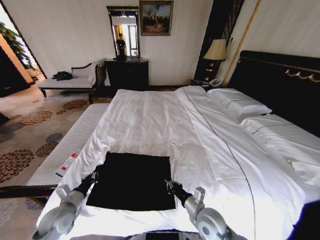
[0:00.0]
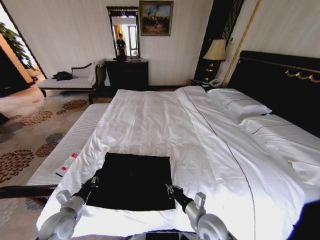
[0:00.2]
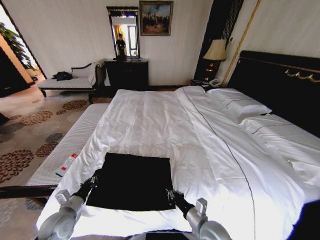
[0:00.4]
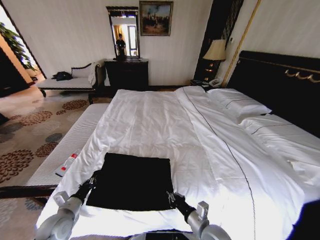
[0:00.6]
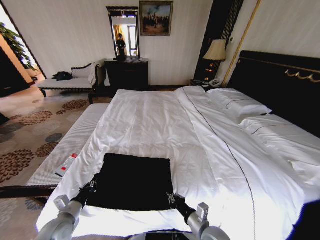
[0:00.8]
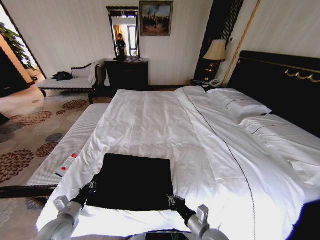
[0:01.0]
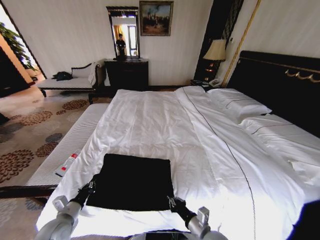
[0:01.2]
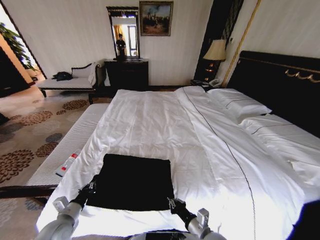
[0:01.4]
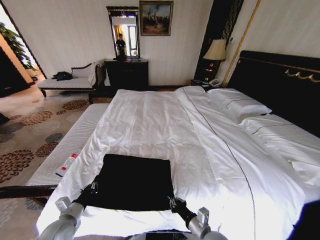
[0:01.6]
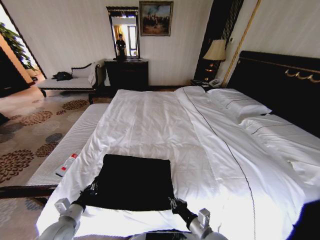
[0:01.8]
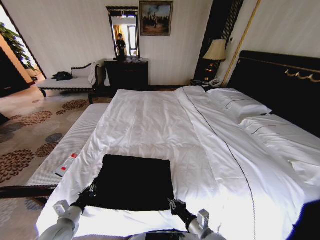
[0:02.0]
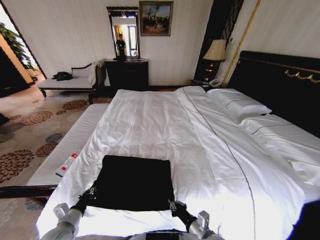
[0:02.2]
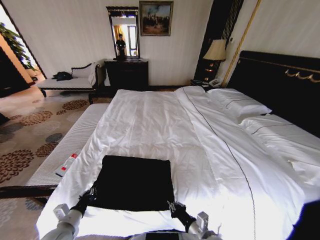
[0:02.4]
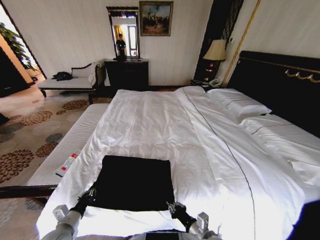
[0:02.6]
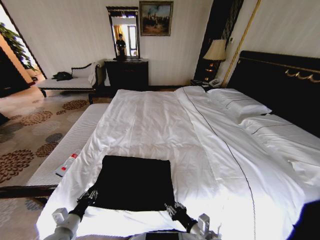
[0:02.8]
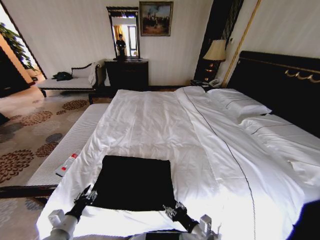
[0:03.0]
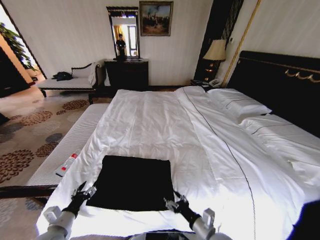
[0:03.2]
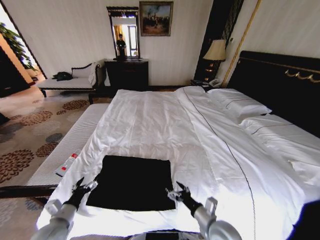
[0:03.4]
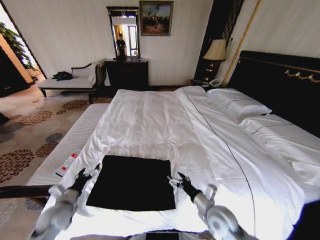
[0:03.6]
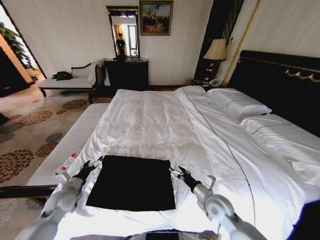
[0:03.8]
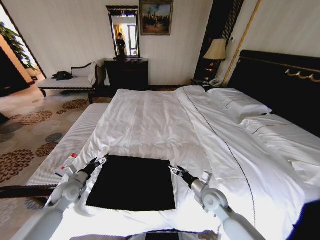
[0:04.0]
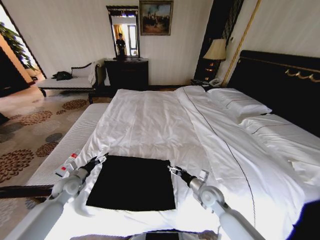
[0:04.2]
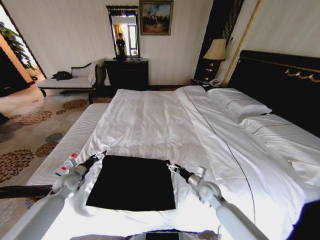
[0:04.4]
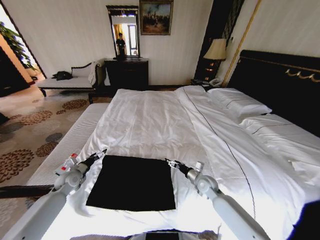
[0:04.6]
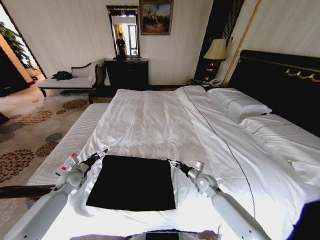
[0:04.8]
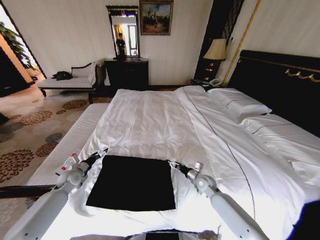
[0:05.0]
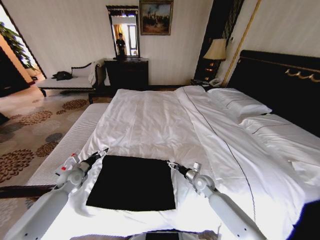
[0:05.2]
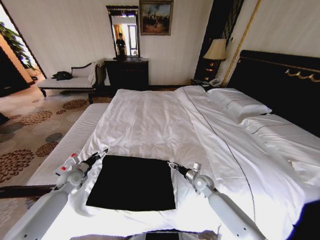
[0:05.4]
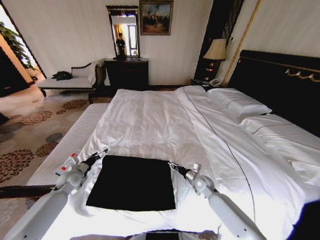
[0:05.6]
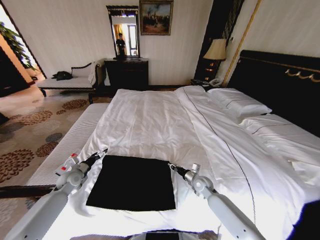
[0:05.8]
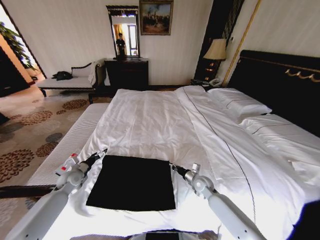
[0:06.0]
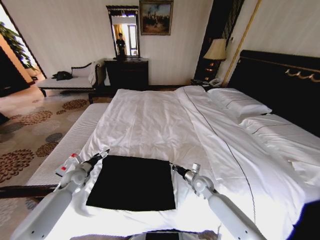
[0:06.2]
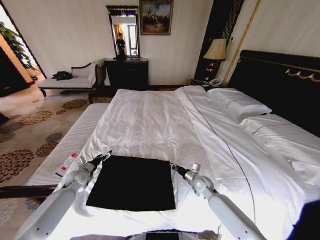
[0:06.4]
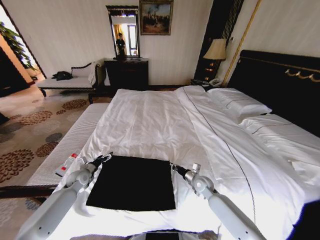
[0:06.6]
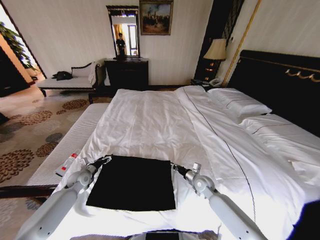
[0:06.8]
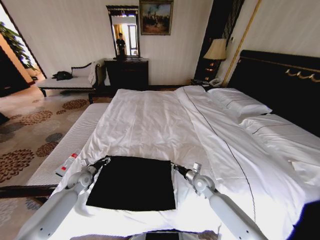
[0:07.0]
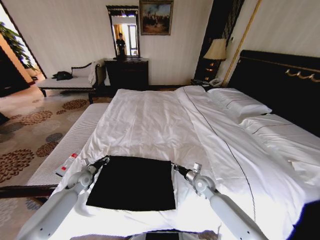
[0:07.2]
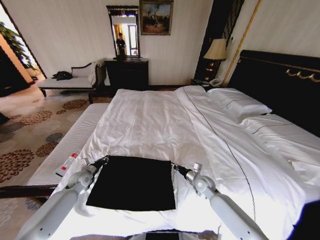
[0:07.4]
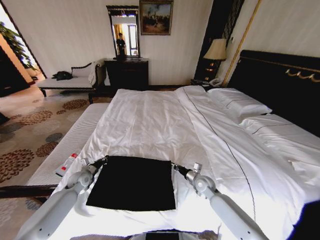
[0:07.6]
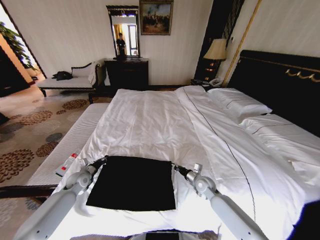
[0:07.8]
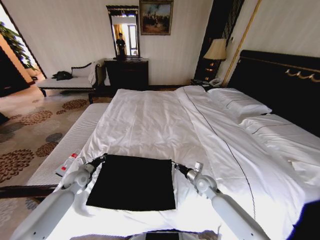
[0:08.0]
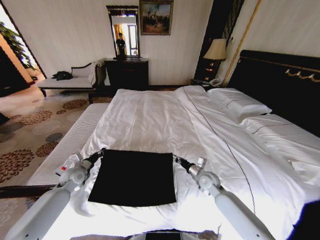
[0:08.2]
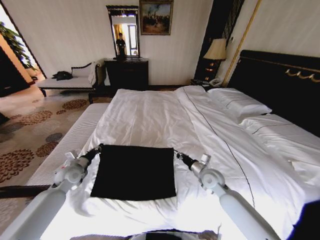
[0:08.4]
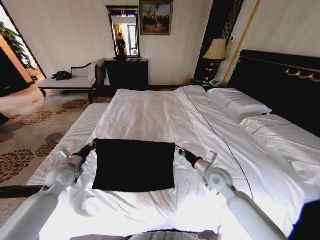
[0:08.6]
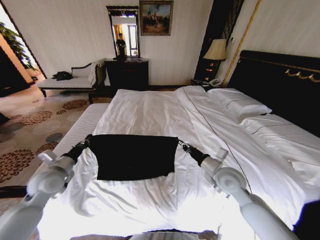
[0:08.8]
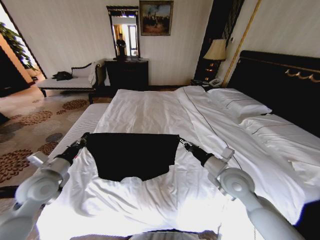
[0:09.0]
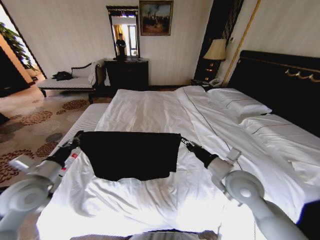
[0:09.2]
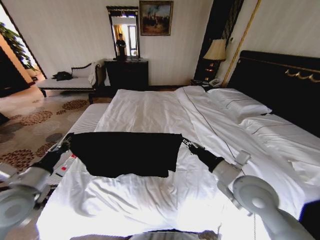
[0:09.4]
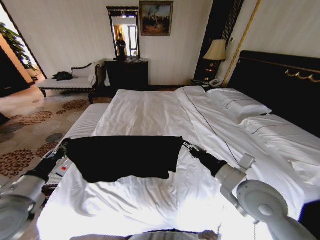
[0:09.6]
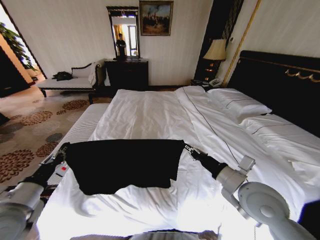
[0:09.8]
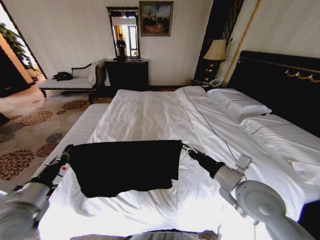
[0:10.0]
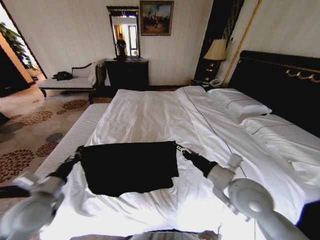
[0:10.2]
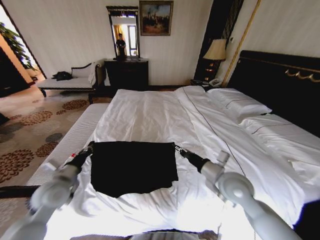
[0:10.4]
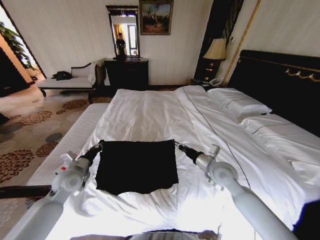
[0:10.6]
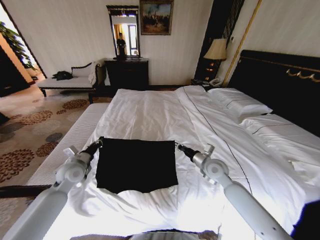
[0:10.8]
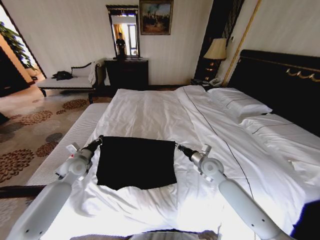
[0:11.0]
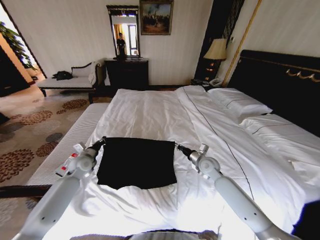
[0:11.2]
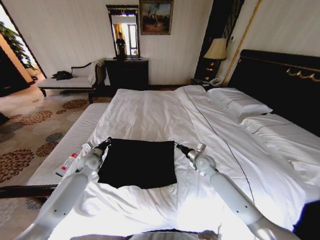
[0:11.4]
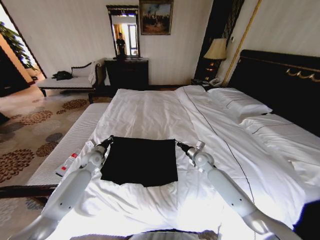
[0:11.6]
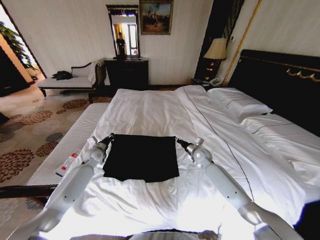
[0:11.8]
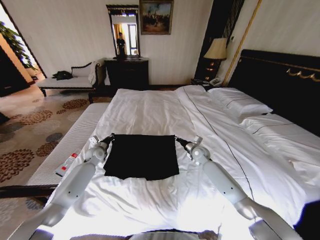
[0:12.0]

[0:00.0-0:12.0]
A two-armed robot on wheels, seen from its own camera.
Task of the whole recording: Fold the clothes on the bed.
0:00.0 to 0:01.6: The right gripper heads backward, covering roughly 5 cm.
0:01.6 to 0:03.0: The left gripper opens. Meanwhile the right gripper opens.
0:03.0 to 0:04.4: The grippers both shift forward by roughly 20 cm. The right gripper opens its fingers; the left gripper opens.
0:04.4 to 0:06.0: The right gripper ends up about 5 cm from where it was, and closes.
0:06.0 to 0:07.6: The left gripper closes its fingers.
0:07.6 to 0:09.0: The left gripper is displaced upward and backward by about 20 cm. The right gripper shifts some 20 cm upward.
0:09.0 to 0:10.4: The left gripper goes backward and returns, roughly 10 cm each way.
0:10.4 to 0:12.0: The two grippers go roughly 25 cm forward and downward.

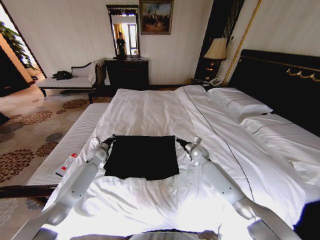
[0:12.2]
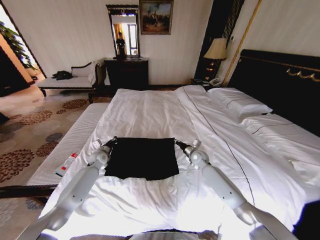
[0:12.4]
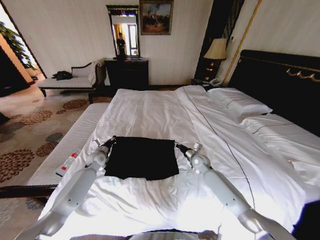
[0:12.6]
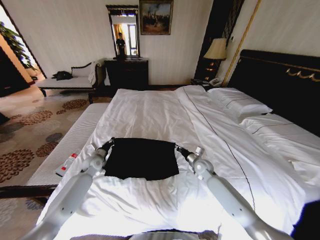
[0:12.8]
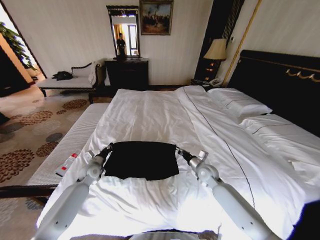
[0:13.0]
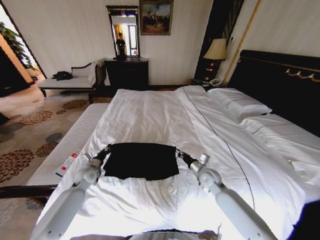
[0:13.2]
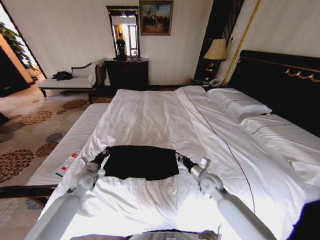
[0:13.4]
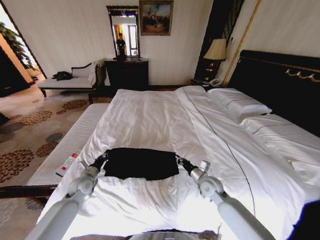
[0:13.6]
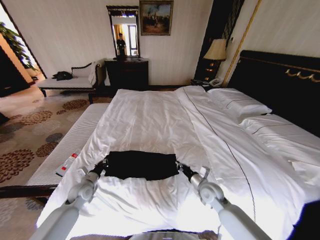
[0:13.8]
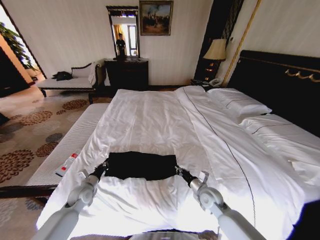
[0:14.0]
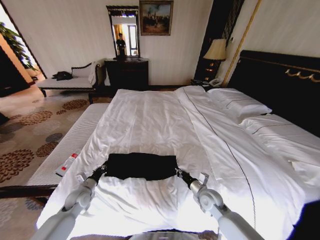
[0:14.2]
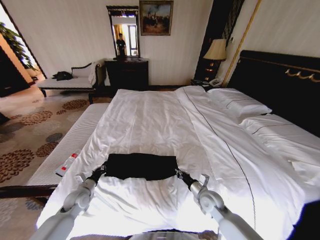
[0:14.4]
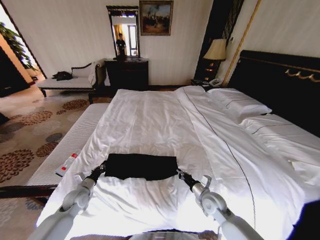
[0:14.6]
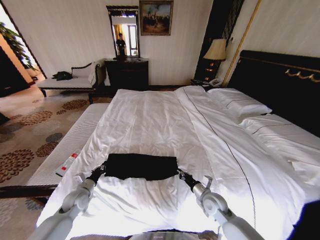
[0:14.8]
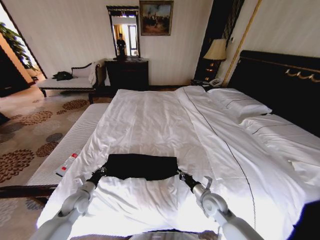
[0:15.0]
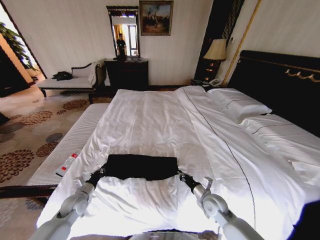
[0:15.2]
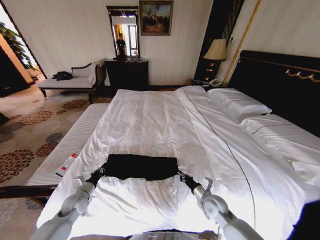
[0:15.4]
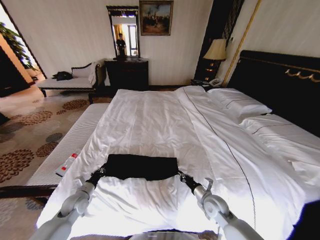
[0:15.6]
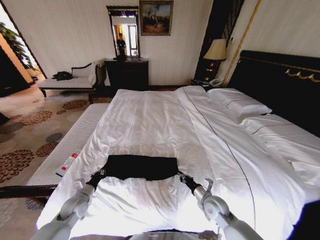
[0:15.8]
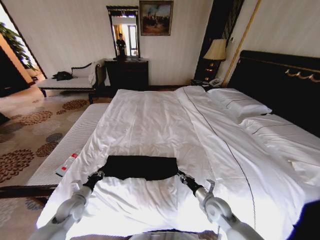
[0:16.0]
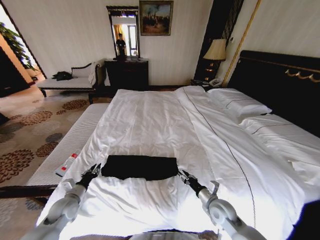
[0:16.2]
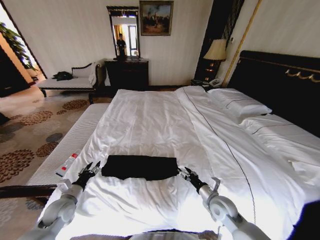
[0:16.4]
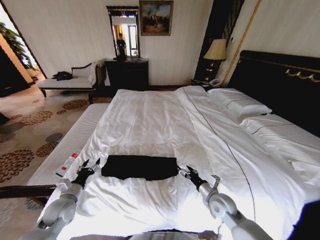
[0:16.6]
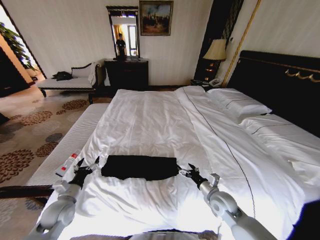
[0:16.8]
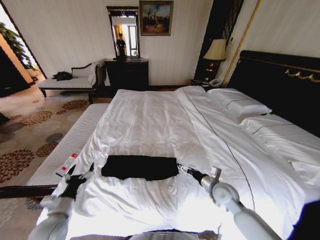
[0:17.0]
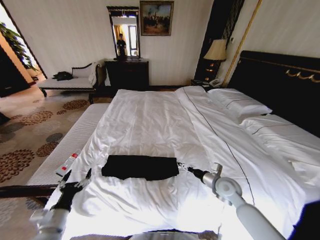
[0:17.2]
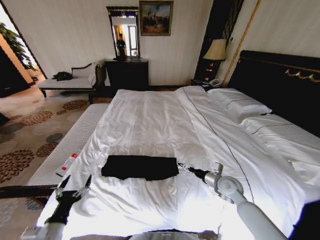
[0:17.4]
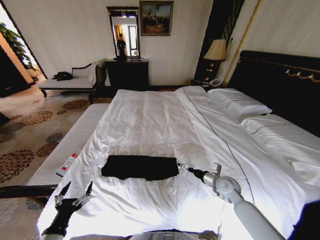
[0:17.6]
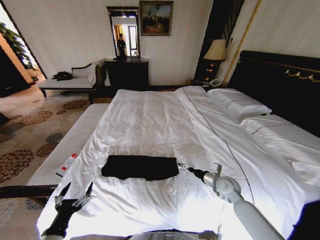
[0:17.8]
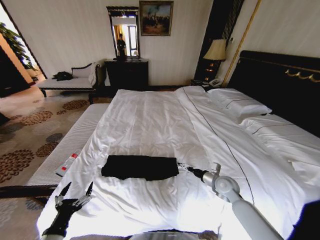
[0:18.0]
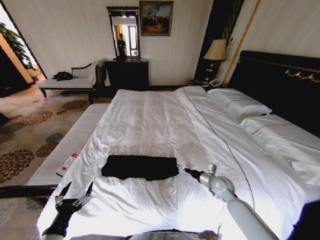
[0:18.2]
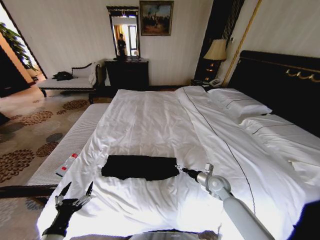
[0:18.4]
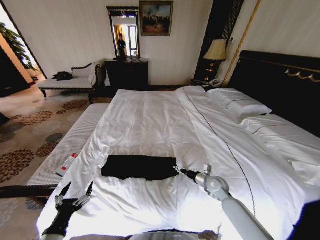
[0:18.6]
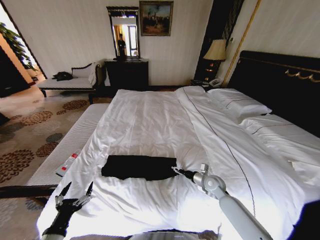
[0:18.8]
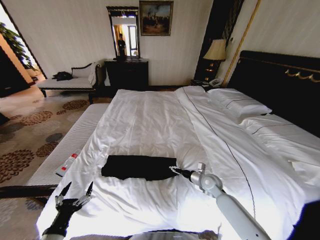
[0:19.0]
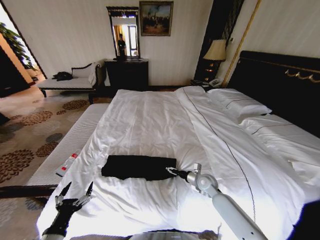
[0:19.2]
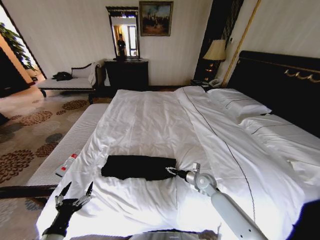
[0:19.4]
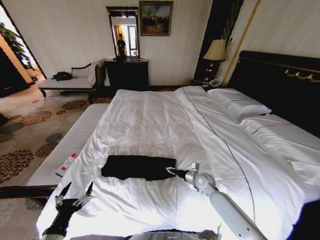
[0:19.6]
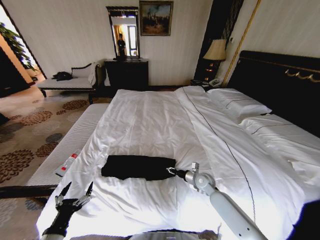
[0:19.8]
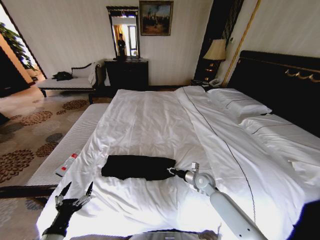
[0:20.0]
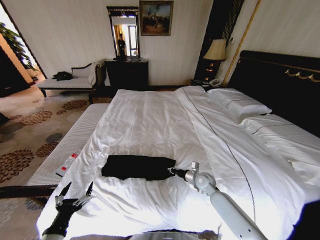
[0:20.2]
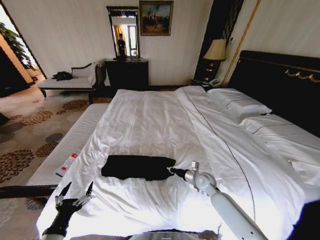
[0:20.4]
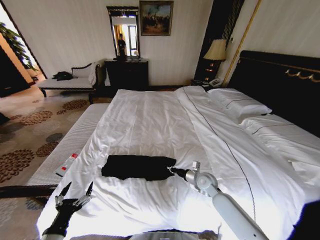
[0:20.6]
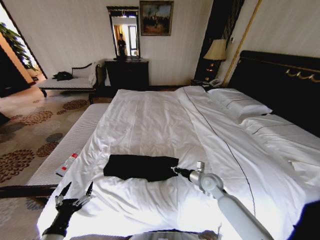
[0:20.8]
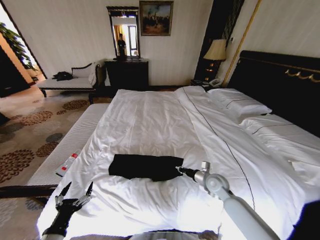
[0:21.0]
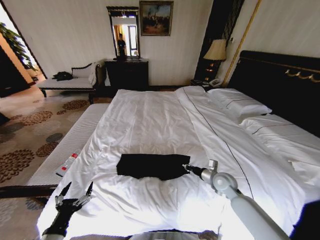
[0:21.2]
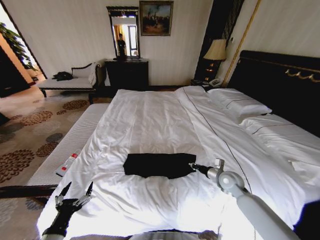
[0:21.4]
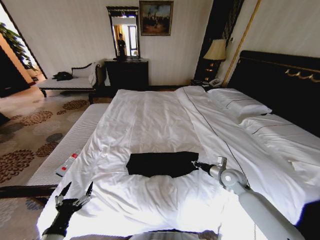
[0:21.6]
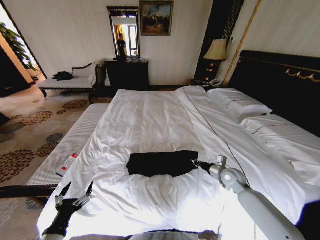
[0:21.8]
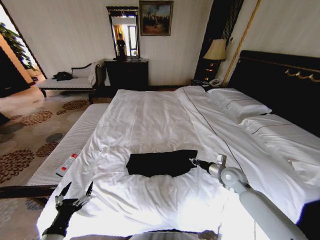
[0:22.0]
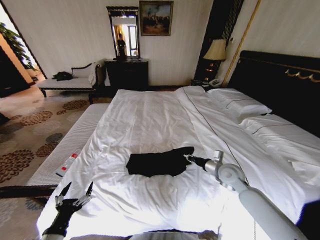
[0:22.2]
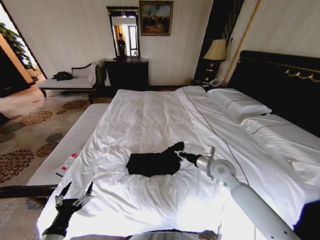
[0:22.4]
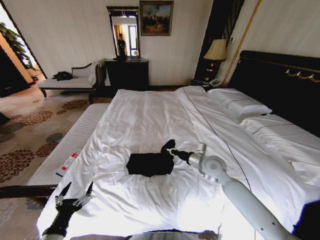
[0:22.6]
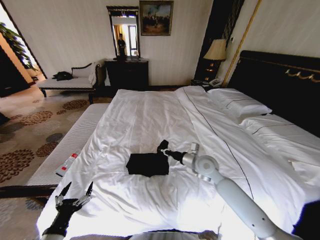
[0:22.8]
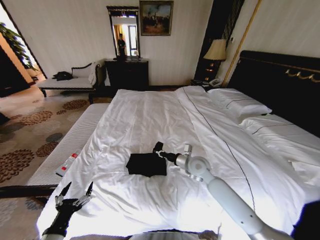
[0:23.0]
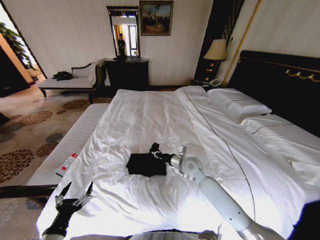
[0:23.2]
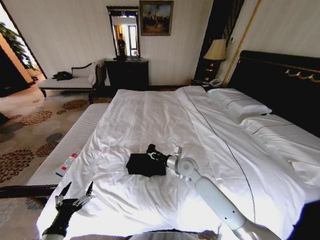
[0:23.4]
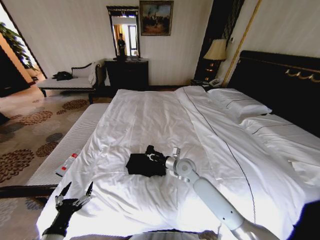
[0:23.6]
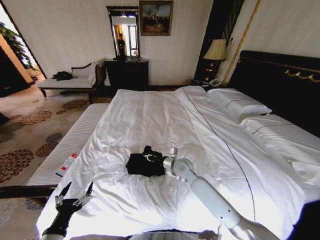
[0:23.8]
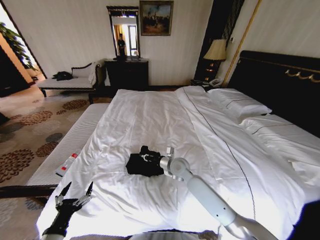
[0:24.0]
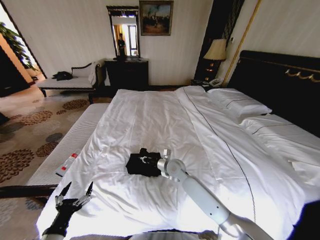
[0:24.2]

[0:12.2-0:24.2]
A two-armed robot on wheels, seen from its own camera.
Task of the whole recording: Fold the clothes on the bed.
0:12.2 to 0:13.8: The grippers both shift backward by some 20 cm.
0:13.8 to 0:15.2: The left gripper shifts by some 5 cm.
0:15.2 to 0:16.6: The left gripper moves approximately 5 cm, and opens its fingers, while the right gripper opens up.
0:16.6 to 0:18.2: The left gripper heads backward, covering some 15 cm. Meanwhile the right gripper travels forward by some 10 cm.
0:18.2 to 0:19.8: The right gripper travels to the left by about 5 cm, and closes its fingers.
0:19.8 to 0:21.2: The right gripper goes approximately 10 cm upward and to the right, and closes up.
0:21.2 to 0:22.6: The right gripper travels upward and to the left by some 10 cm.
0:22.6 to 0:24.2: The right gripper moves to the left and downward, roughly 15 cm.
